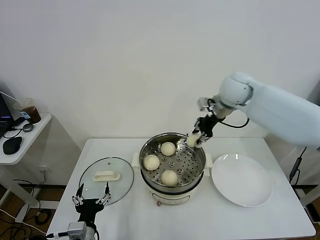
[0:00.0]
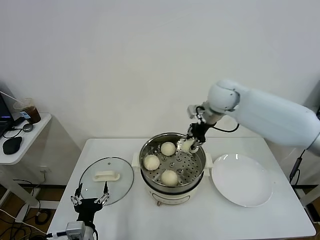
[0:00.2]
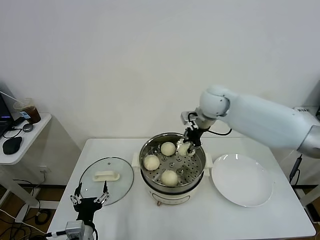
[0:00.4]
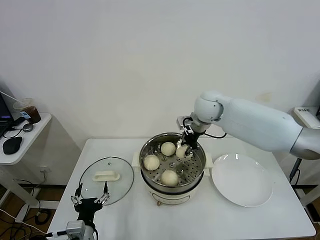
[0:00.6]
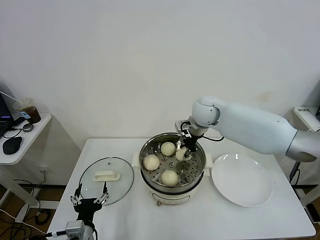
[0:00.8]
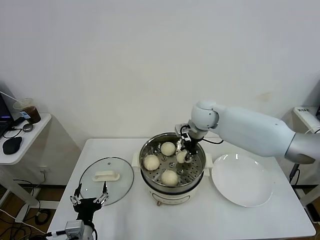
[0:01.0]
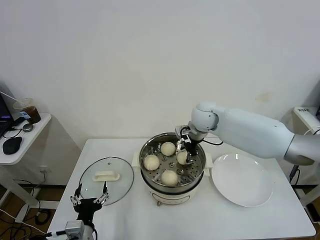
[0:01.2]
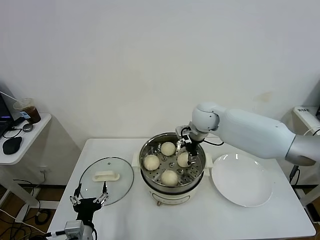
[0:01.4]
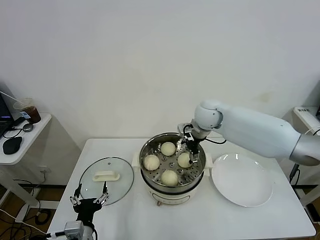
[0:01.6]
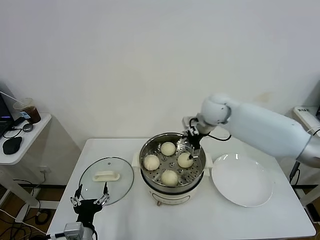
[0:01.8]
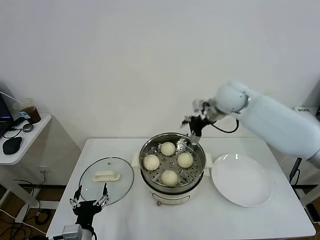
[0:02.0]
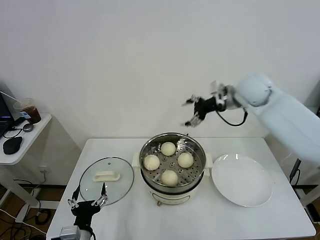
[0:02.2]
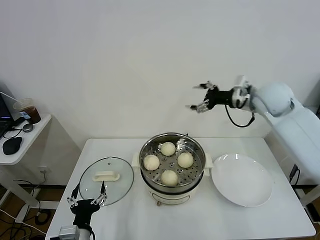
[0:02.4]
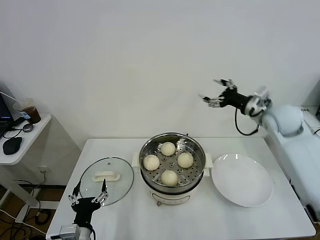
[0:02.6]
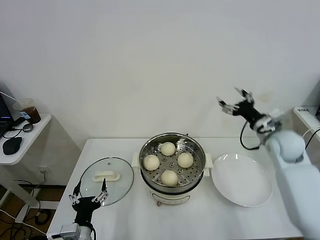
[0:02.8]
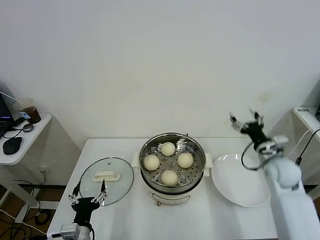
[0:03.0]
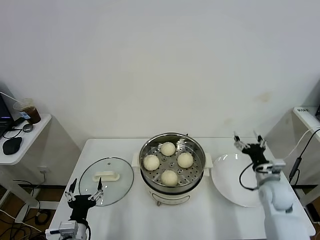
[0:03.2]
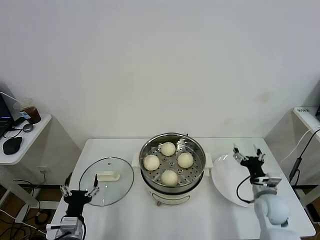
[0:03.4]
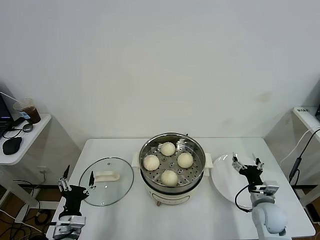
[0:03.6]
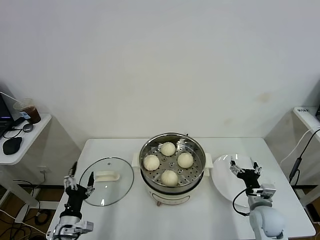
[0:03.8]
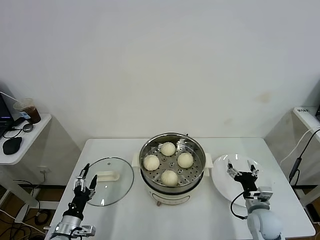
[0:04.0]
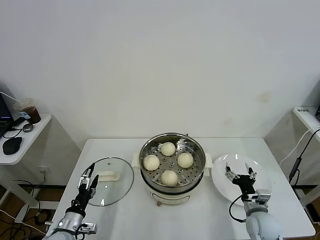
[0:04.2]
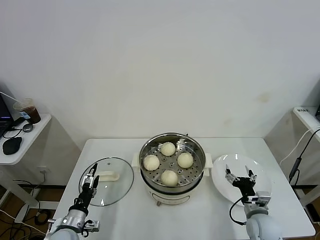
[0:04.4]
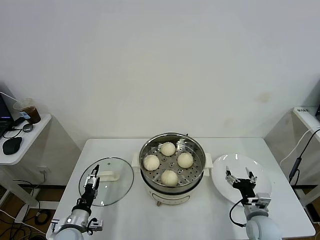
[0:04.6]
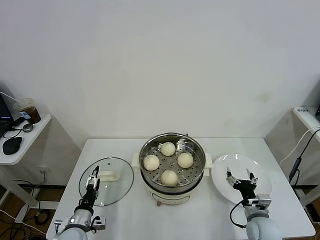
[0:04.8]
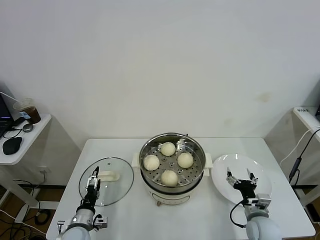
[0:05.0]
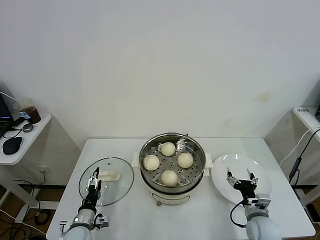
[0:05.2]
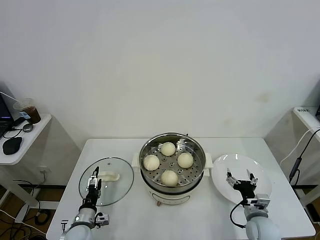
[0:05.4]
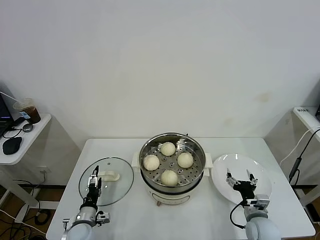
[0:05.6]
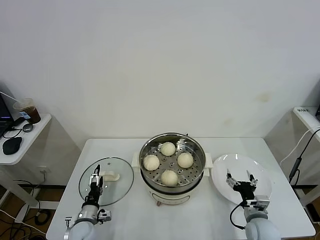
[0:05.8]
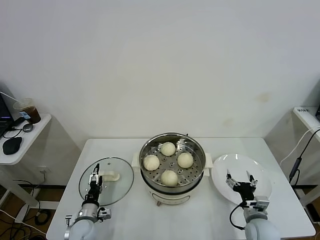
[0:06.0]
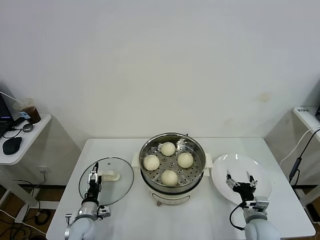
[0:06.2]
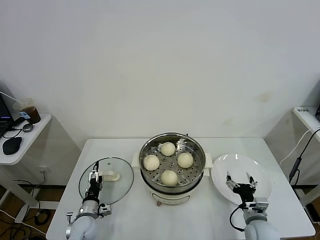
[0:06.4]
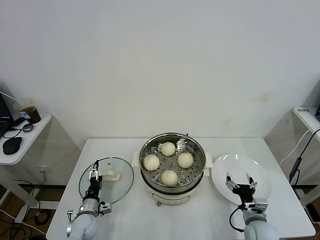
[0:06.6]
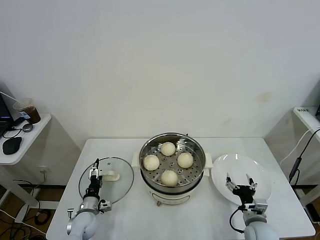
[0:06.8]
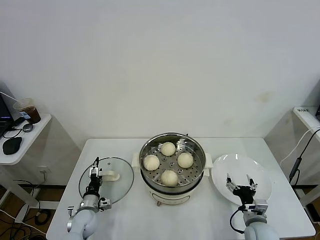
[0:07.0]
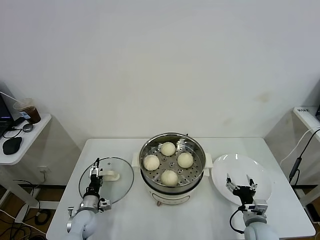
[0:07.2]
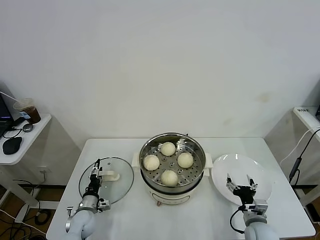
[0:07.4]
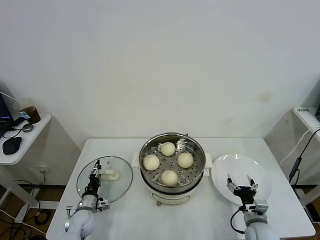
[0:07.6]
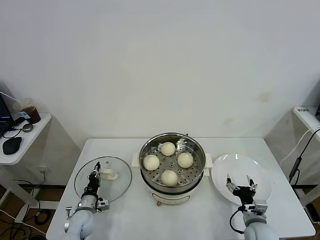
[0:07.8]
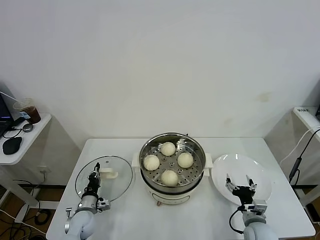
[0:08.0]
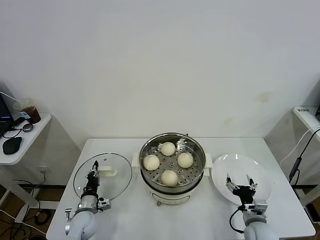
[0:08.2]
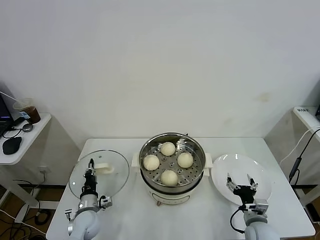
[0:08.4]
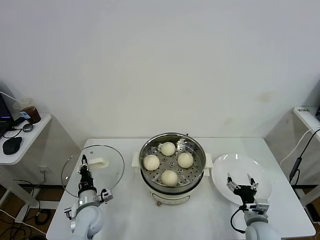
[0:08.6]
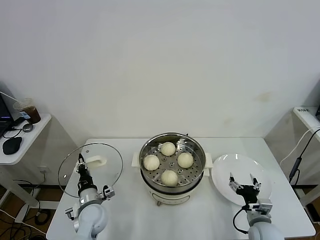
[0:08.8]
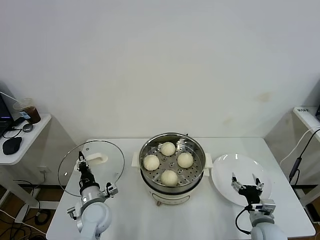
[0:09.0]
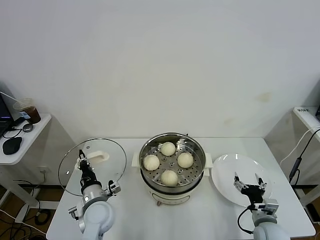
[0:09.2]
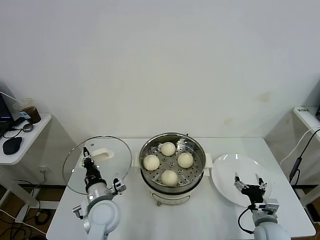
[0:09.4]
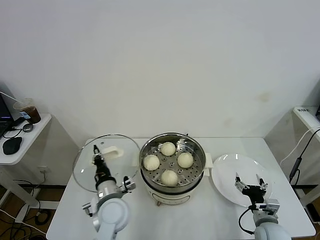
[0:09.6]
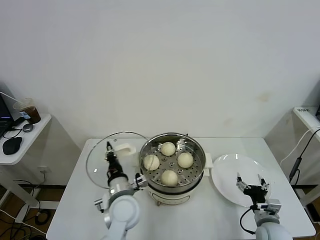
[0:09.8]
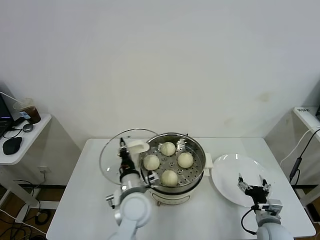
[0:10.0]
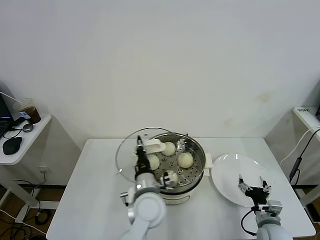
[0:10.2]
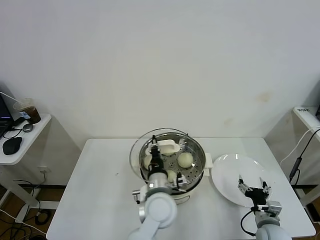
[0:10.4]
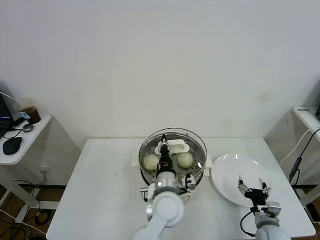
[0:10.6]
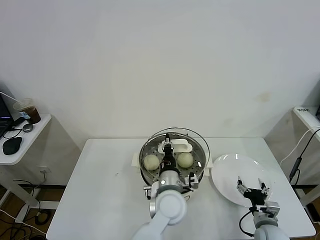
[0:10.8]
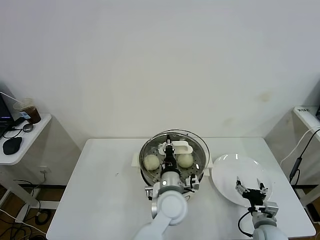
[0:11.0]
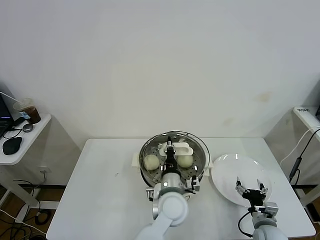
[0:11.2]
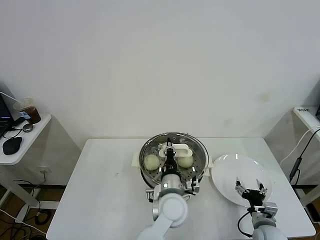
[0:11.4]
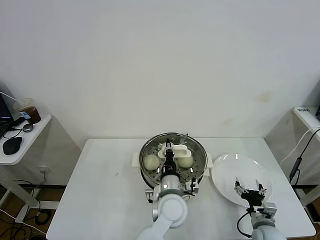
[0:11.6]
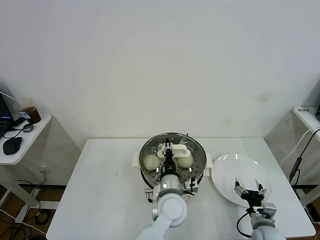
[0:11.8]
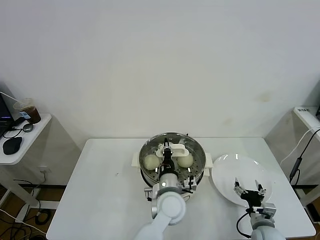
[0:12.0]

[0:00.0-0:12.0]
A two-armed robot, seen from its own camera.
Task of the whole recording: take steamed baozi put them in steamer.
Step, 0:00.0 to 0:01.6: Place the baozi on the steamer with right gripper.
Step, 0:02.0 to 0:08.0: Grasp the pot lid with left gripper.
0:00.0 to 0:01.6: The right gripper shifts approximately 10 cm downward and to the left, and opens.
0:01.6 to 0:03.0: The right gripper moves to the right, backward and downward, about 30 cm.
0:03.0 to 0:04.4: The left gripper heads to the left, forward and downward, covering approximately 10 cm; the right gripper moves downward and backward, some 20 cm.
0:04.4 to 0:06.0: The left gripper travels downward and forward by some 10 cm.
0:06.0 to 0:07.6: The left gripper closes.
0:07.6 to 0:09.0: The left gripper travels upward and to the right by roughly 15 cm, and closes up.
0:09.0 to 0:10.4: The left gripper goes approximately 25 cm to the right and upward.
0:10.4 to 0:12.0: The left gripper shifts by roughly 5 cm.

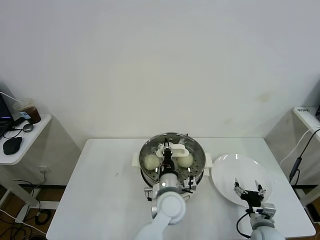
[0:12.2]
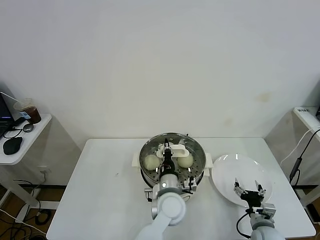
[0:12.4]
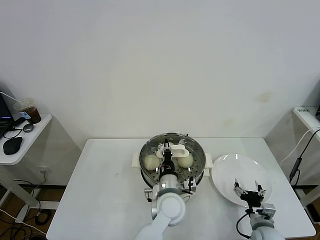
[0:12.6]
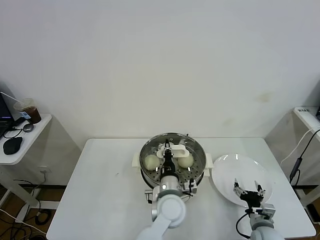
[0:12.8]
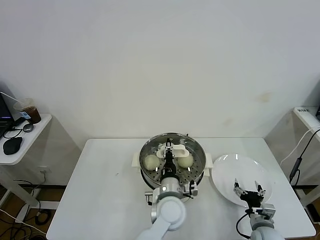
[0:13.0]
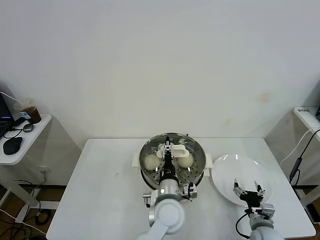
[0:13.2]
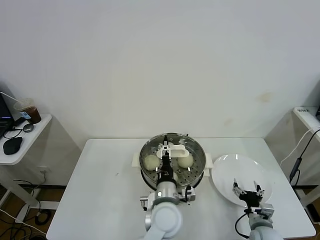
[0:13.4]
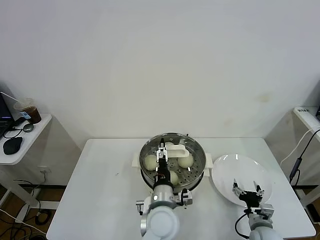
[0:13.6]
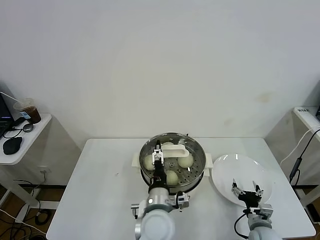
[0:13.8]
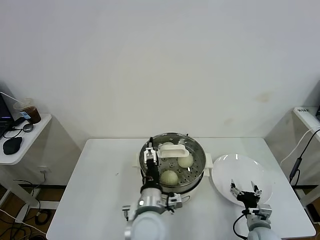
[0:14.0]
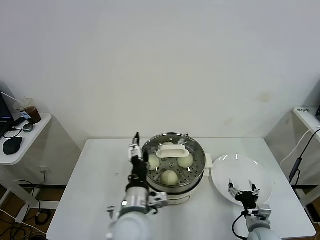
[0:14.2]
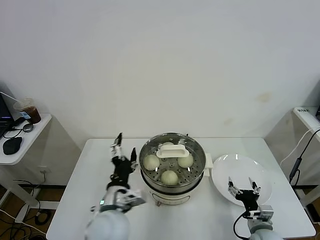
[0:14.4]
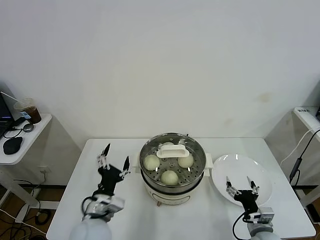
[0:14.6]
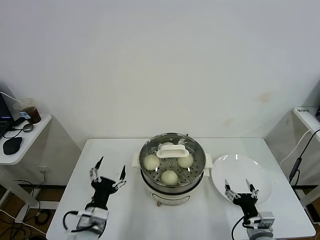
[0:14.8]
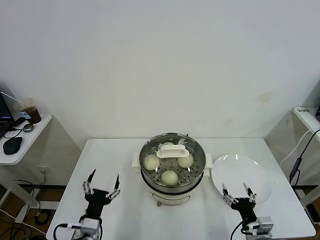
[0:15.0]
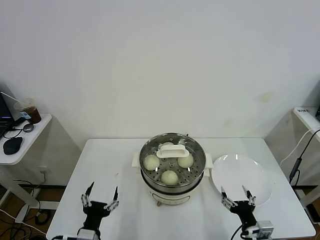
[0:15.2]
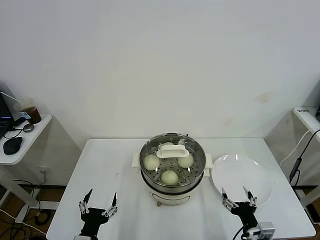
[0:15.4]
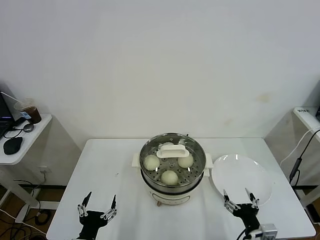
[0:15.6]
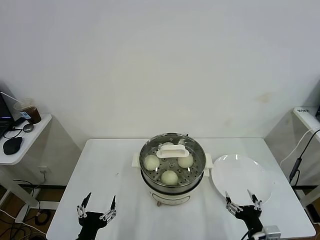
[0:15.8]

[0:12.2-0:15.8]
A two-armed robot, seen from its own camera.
Task of the whole recording: take steamed baozi put them in steamer.
0:12.2 to 0:14.0: The left gripper heads backward and to the left, covering approximately 10 cm, and opens its fingers.
0:14.0 to 0:15.8: The right gripper is displaced backward and upward by some 10 cm. The left gripper goes approximately 25 cm to the left and backward.
